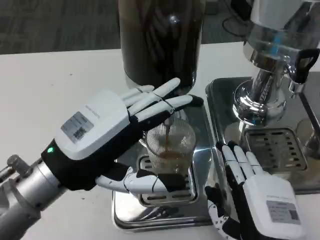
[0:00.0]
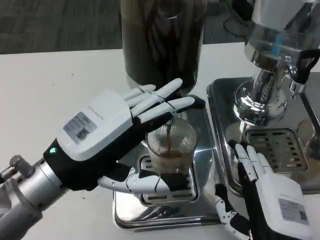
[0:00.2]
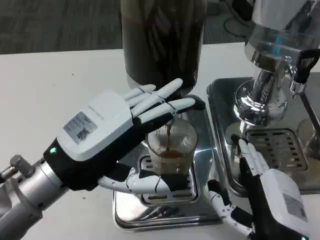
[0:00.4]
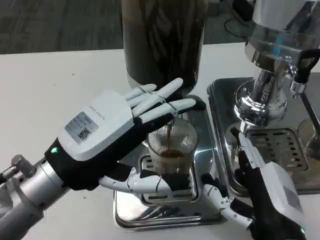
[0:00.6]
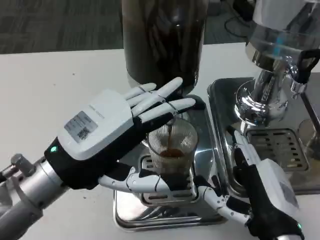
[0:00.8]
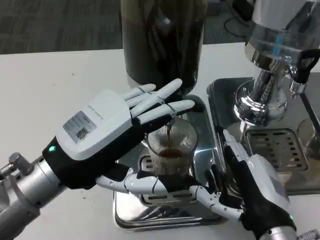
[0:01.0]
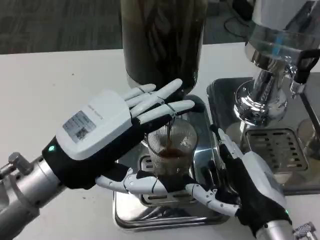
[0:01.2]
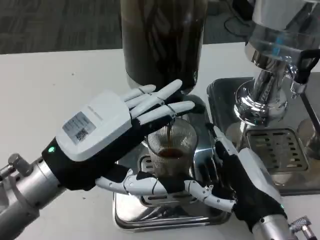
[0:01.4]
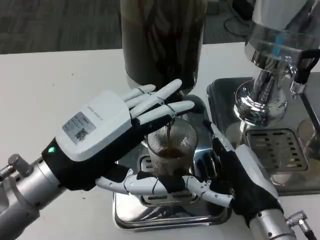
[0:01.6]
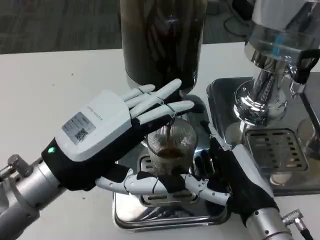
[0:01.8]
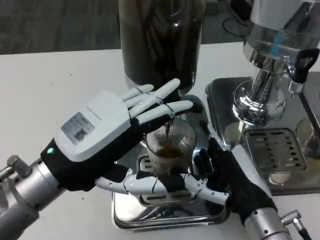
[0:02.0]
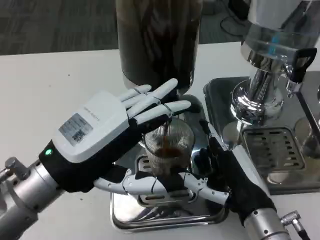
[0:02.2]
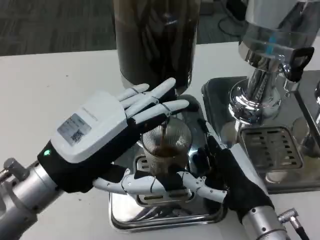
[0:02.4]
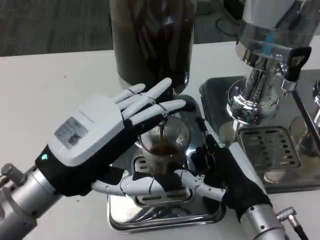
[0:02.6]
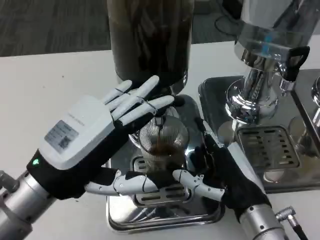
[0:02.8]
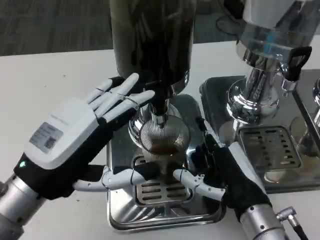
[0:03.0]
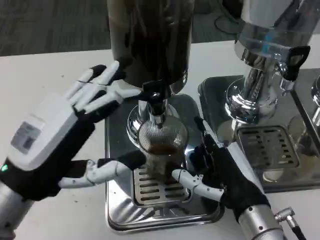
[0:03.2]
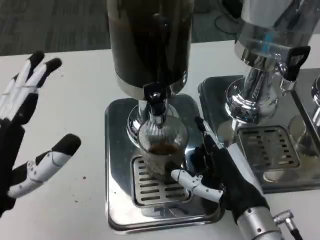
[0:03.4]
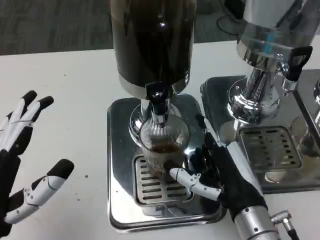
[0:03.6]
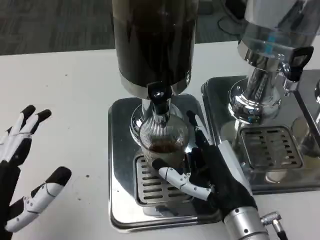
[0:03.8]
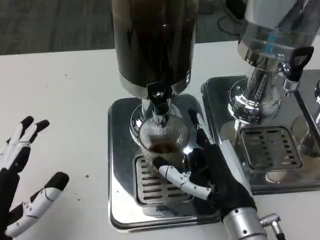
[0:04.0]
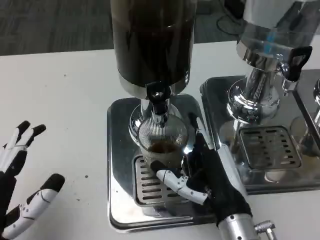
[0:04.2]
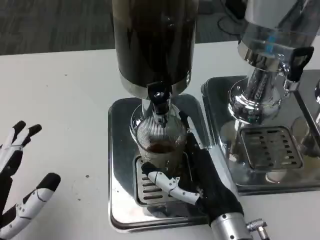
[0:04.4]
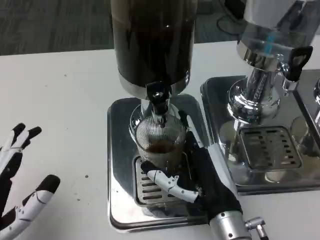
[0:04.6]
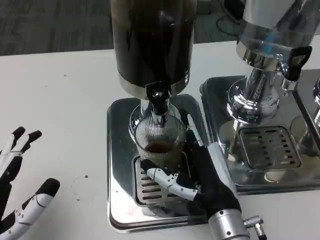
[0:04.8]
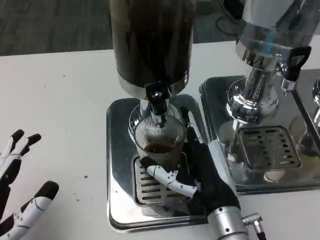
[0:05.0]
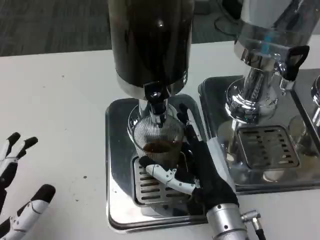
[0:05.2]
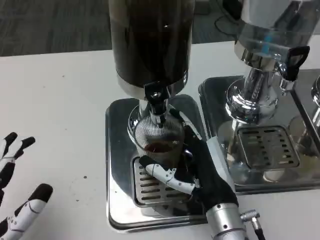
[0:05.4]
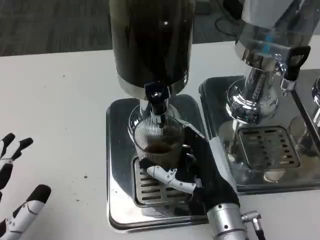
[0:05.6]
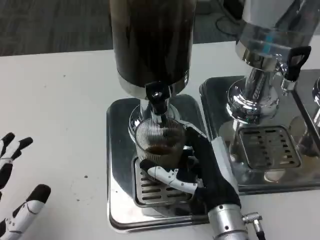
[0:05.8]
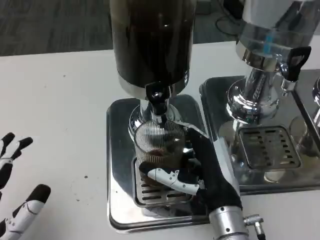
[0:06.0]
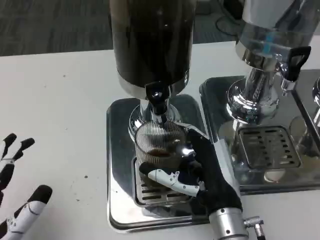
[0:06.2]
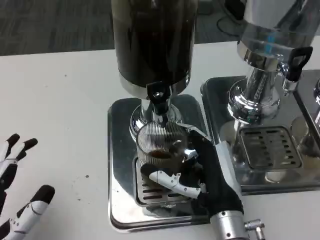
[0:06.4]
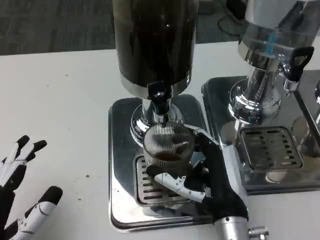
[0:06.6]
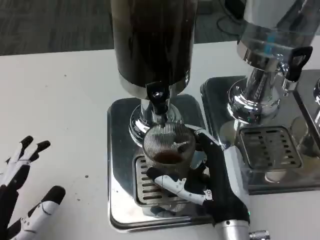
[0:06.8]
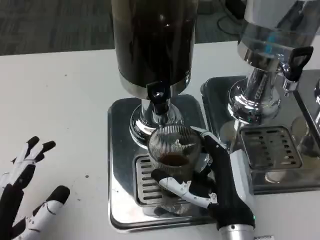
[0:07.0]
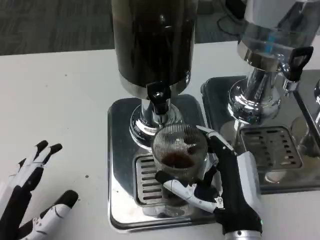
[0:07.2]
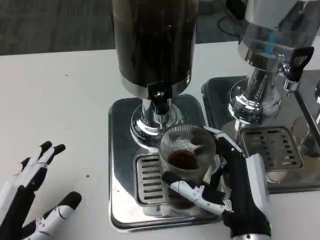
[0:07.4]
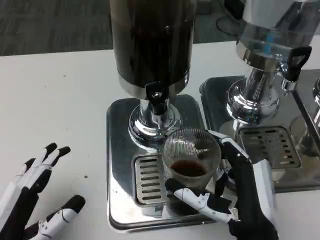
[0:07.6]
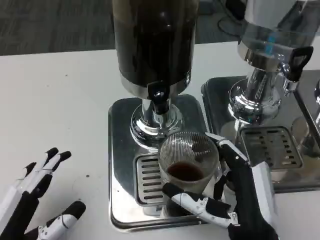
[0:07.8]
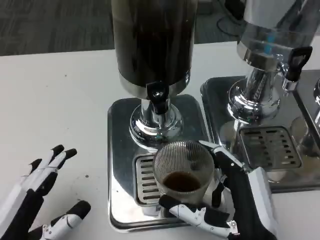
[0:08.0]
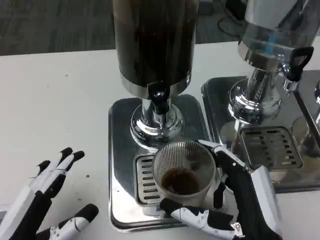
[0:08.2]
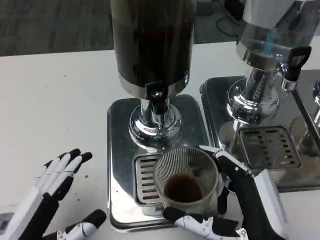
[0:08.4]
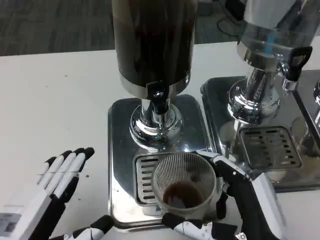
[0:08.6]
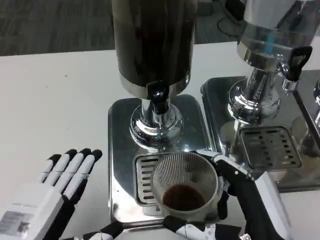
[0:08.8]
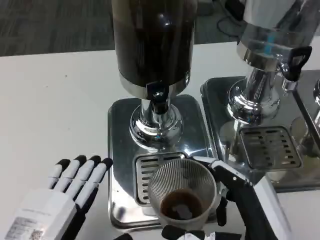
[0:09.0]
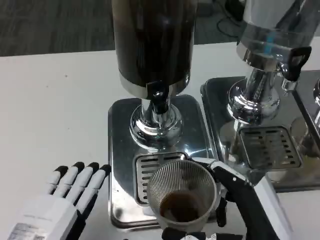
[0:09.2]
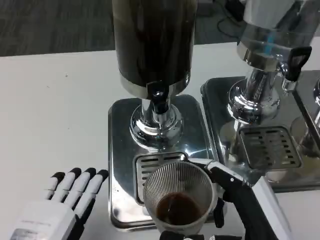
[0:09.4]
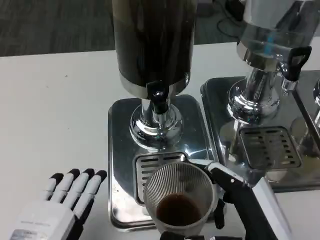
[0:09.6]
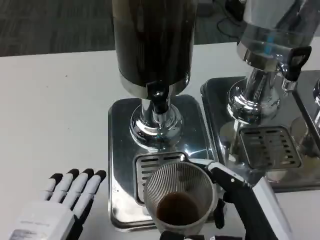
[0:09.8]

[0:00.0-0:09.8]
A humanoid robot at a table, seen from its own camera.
Task of the whole recording: Grasp the cup under the faucet to collect the drink, then remove the cup.
0:00.0 to 0:01.4: The right hand travels forward by about 5 cm.
0:02.8 to 0:04.2: The left hand travels downward, backward and to the left by about 15 cm.
0:04.2 to 0:05.6: The hands make only small movements.
0:07.0 to 0:08.4: The right hand goes some 5 cm backward.
0:08.4 to 0:09.8: The left hand moves approximately 5 cm.

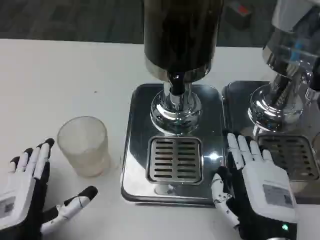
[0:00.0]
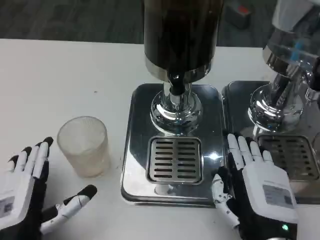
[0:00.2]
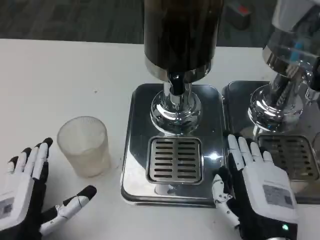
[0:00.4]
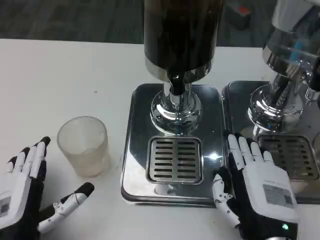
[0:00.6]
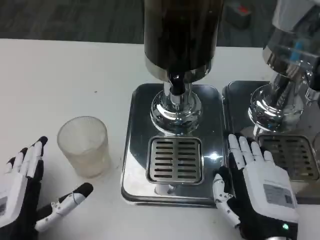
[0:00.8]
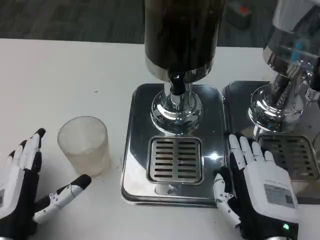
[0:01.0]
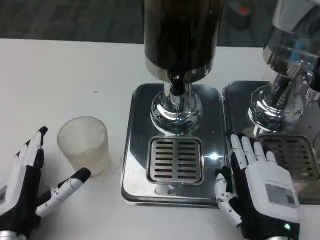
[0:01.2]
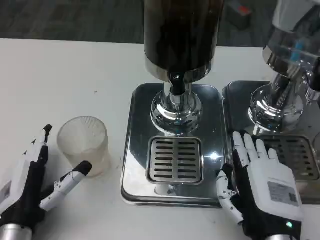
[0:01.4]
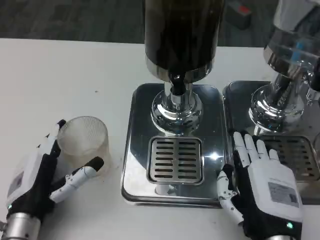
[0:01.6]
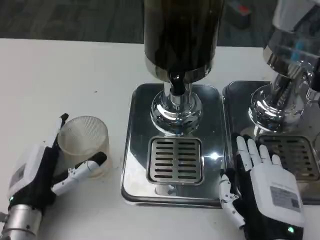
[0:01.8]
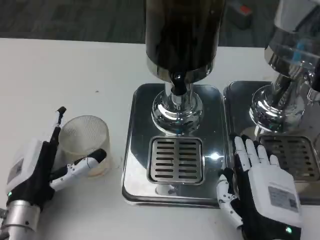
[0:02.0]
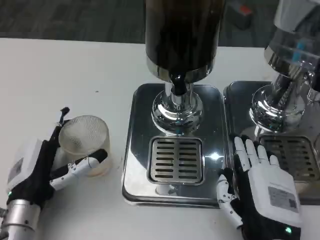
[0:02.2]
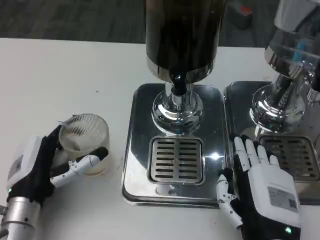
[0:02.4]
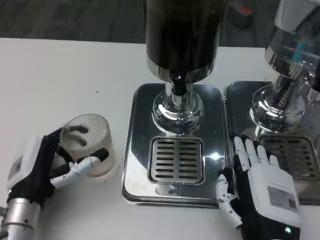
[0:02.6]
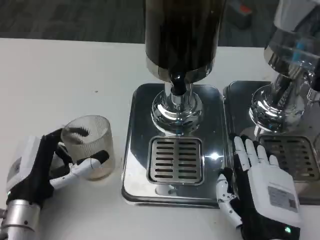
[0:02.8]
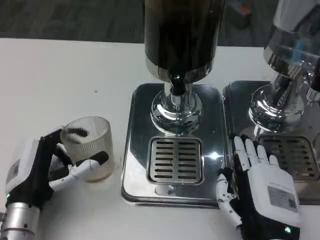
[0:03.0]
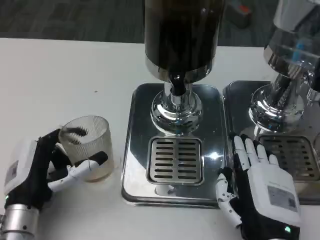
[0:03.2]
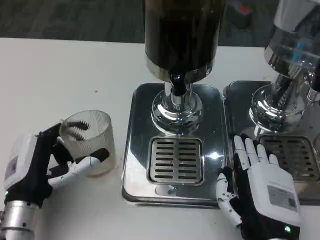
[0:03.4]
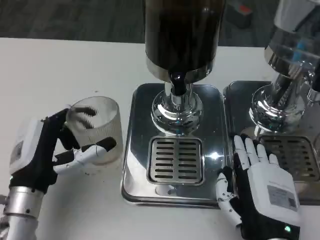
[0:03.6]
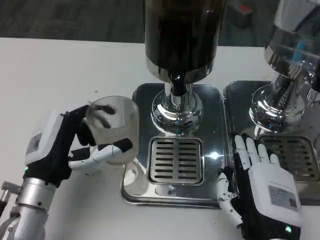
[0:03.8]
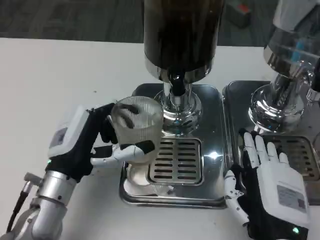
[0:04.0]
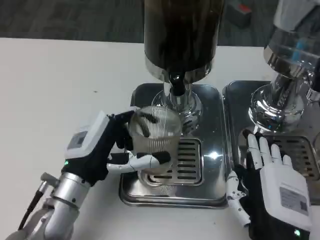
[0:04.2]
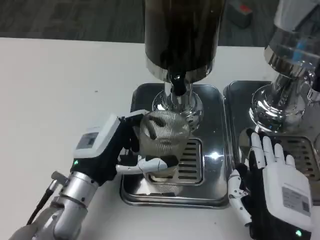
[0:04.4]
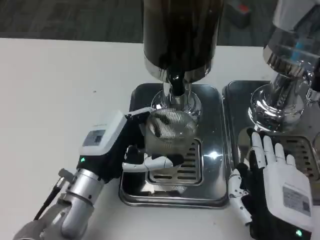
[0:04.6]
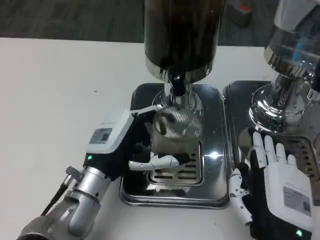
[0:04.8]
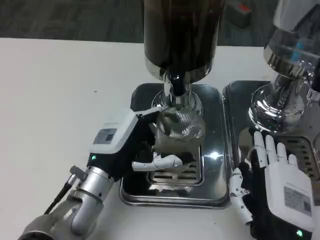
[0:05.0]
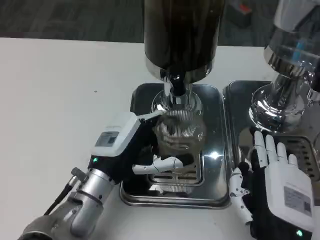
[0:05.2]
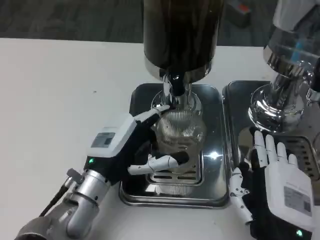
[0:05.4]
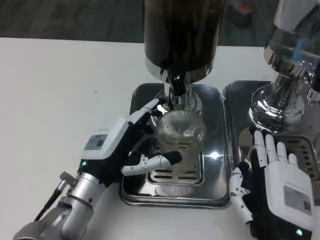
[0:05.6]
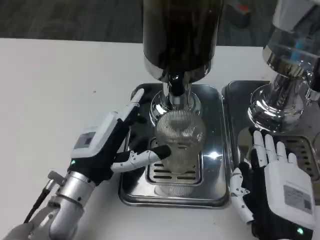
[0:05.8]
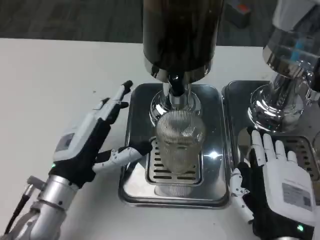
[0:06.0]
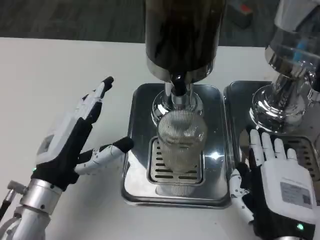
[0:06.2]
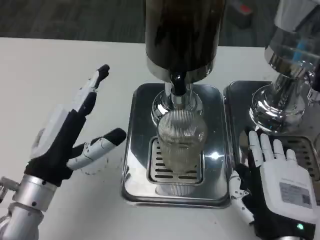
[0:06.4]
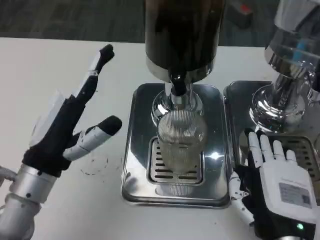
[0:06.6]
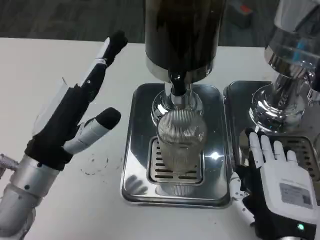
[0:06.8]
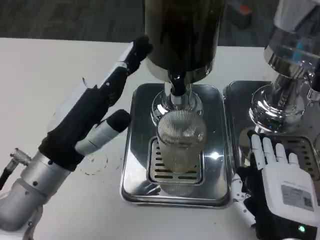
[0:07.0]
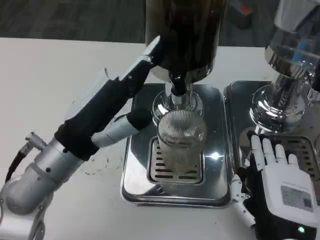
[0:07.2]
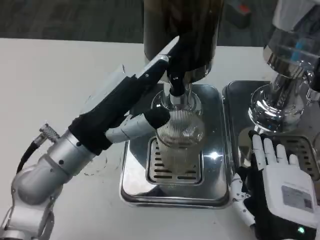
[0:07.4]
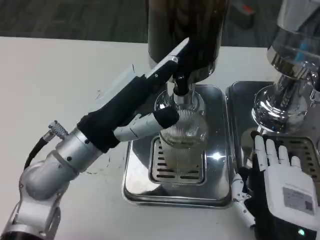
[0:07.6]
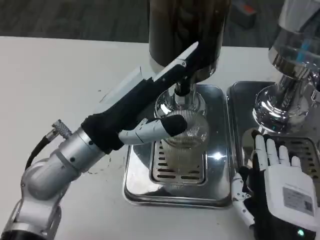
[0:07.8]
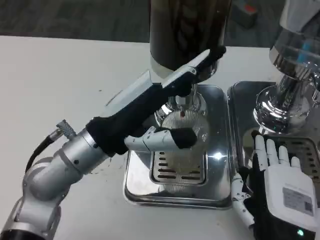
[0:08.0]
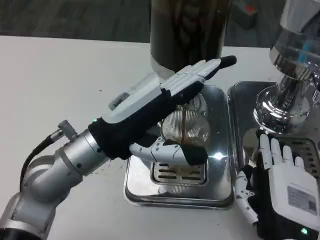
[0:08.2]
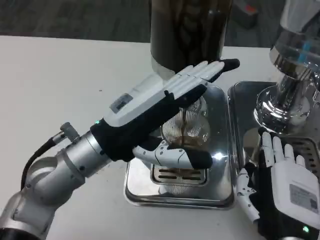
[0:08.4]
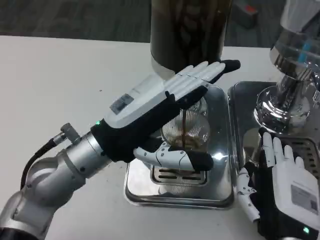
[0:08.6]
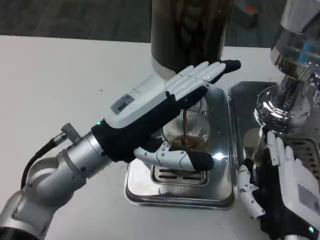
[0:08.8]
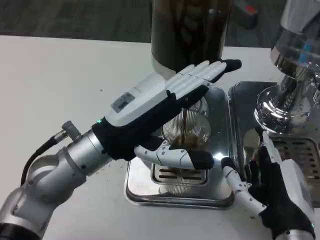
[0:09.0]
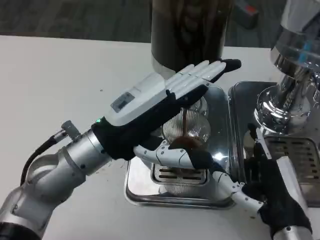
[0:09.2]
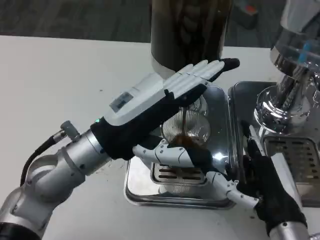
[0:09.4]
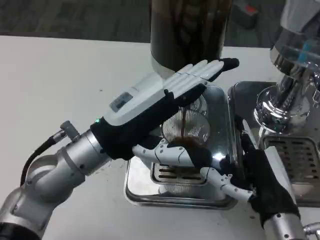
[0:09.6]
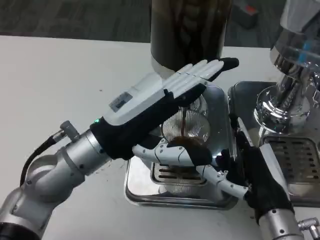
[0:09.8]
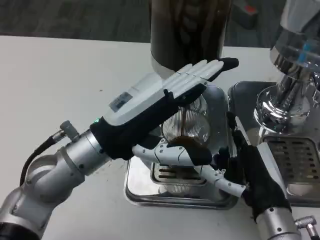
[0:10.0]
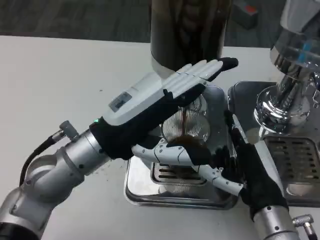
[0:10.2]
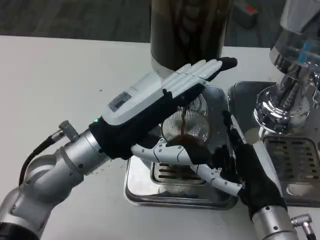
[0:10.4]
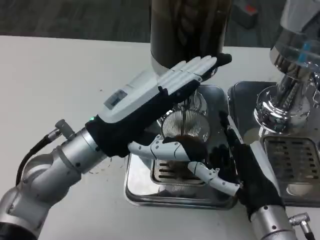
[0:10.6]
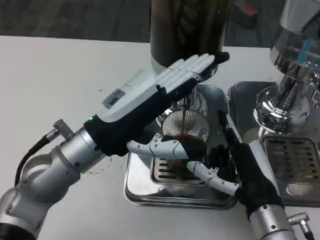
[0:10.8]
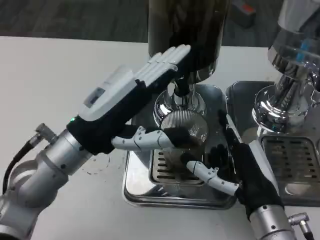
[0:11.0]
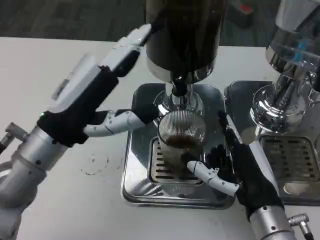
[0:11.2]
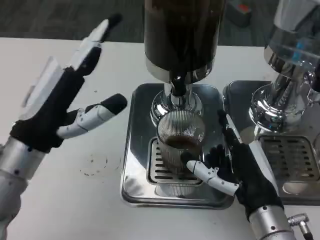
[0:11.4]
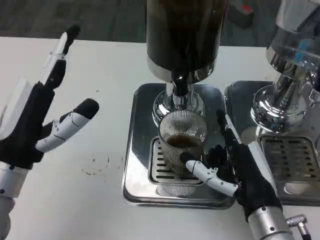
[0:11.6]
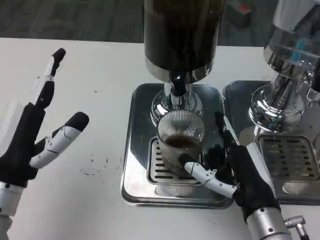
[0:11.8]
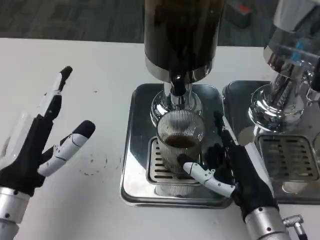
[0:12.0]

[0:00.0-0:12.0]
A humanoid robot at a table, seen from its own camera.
Task of the whole recording: Grasp the cup under the faucet to collect the drink, then remove the cup.
0:00.0 to 0:01.6: The left hand goes about 5 cm forward.
0:01.6 to 0:03.0: There are only small adjustments of the hands.
0:03.0 to 0:04.4: The left hand shifts roughly 5 cm to the right.
0:06.0 to 0:07.6: The left hand heads upward, covering roughly 10 cm.
0:09.0 to 0:10.4: The hands stay close to where they were, moving slightly.
0:10.4 to 0:12.0: The left hand shifts approximately 10 cm to the left, downward and backward.

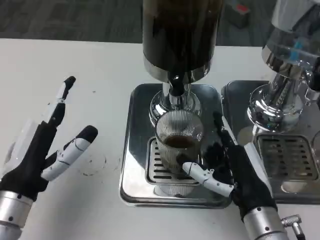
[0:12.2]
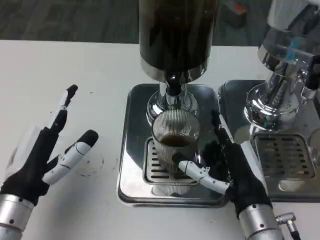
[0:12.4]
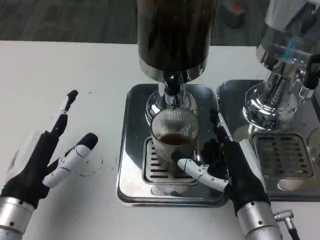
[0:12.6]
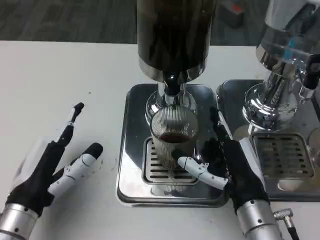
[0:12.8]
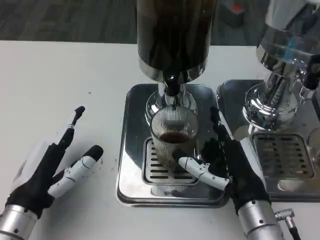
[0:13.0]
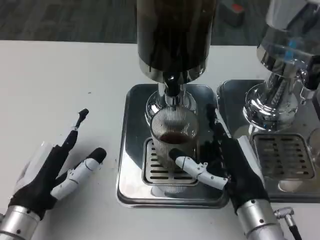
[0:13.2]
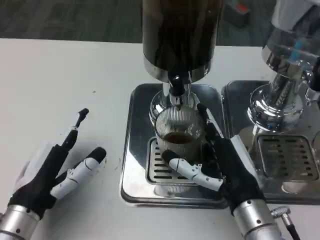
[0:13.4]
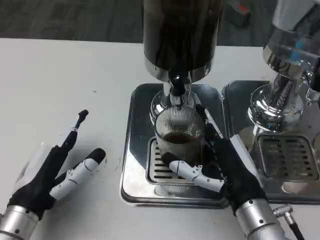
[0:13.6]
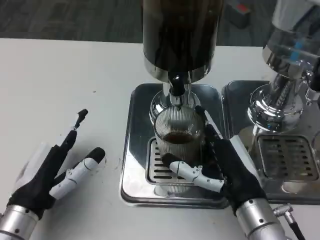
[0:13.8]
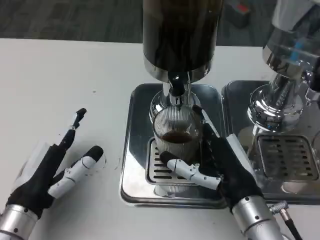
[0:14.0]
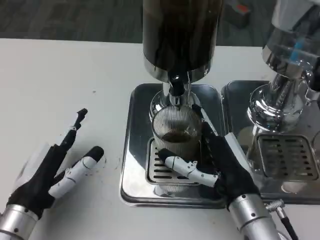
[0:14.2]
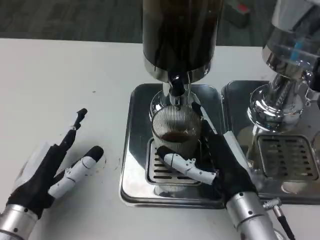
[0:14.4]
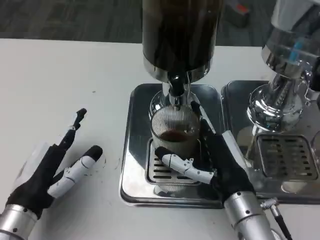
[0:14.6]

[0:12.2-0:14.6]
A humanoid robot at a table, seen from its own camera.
Task of the whole recording: Grasp the cup under the faucet to collect the drink, then remove the cup.
0:12.2 to 0:14.6: The hands make only small movements.
